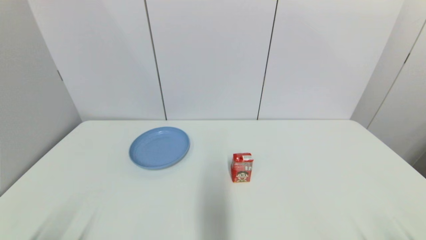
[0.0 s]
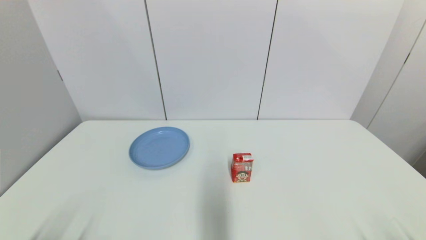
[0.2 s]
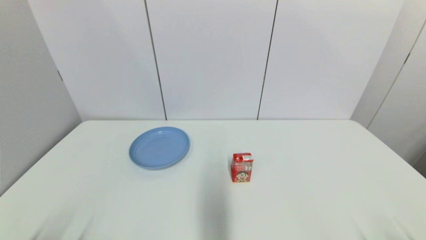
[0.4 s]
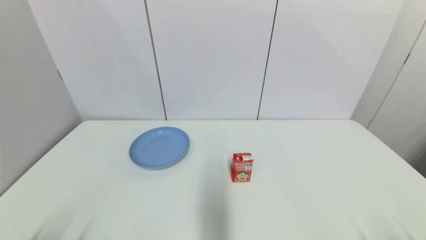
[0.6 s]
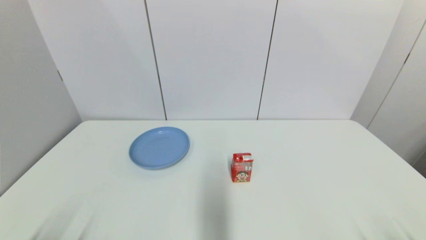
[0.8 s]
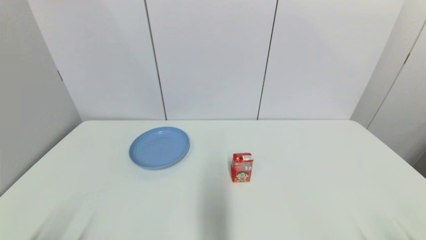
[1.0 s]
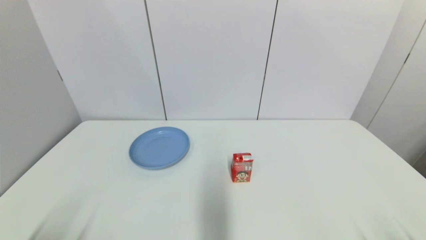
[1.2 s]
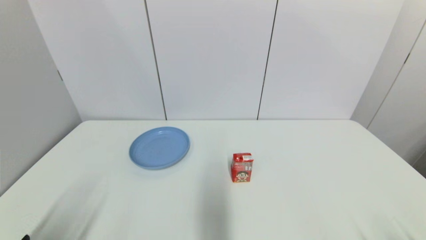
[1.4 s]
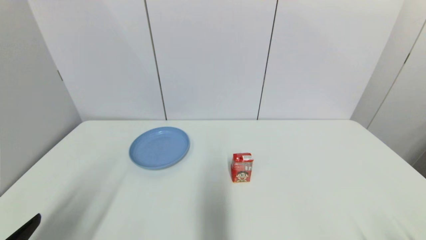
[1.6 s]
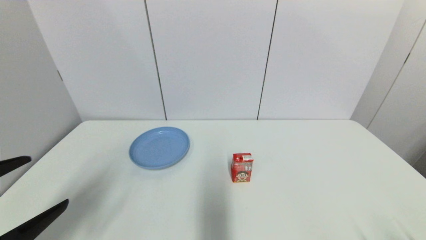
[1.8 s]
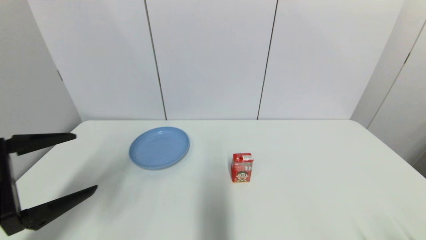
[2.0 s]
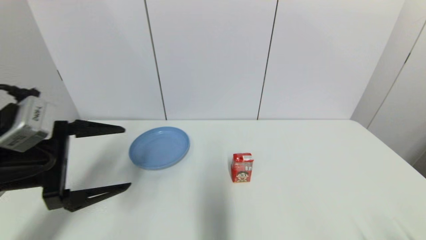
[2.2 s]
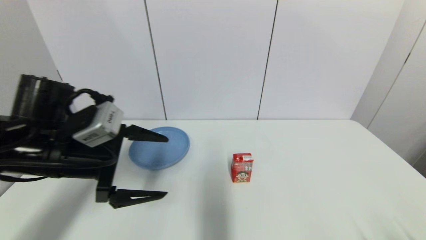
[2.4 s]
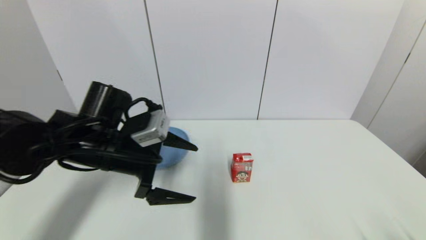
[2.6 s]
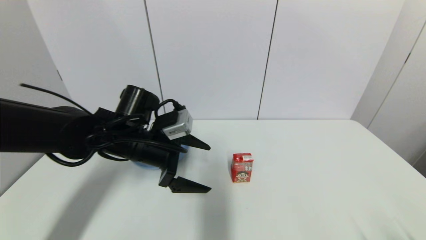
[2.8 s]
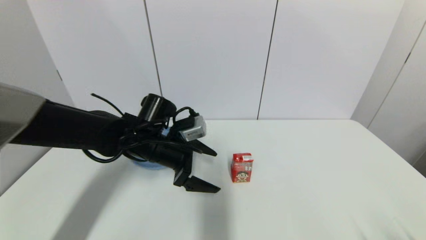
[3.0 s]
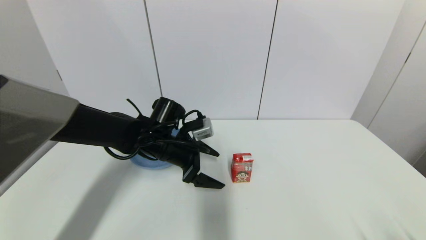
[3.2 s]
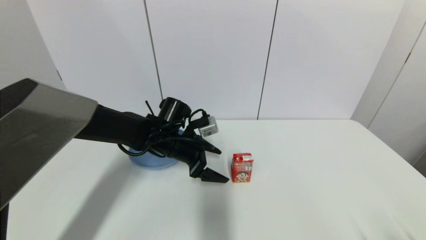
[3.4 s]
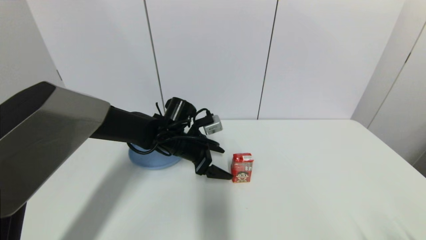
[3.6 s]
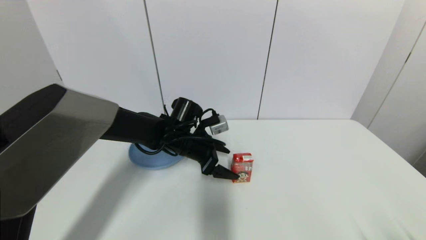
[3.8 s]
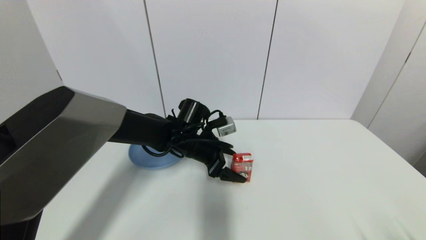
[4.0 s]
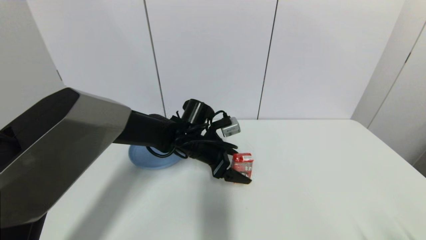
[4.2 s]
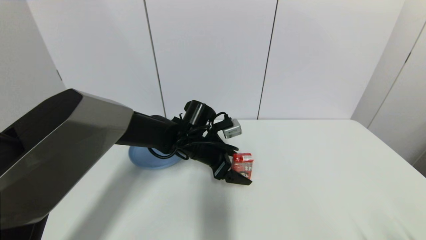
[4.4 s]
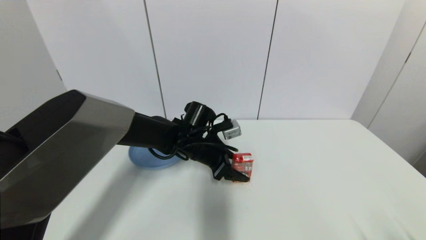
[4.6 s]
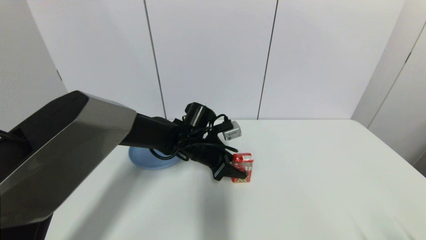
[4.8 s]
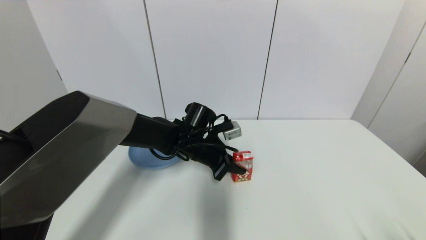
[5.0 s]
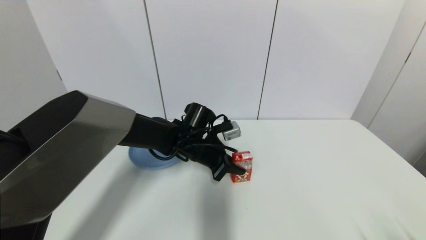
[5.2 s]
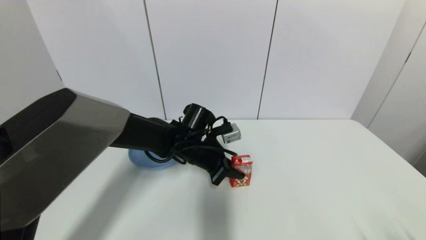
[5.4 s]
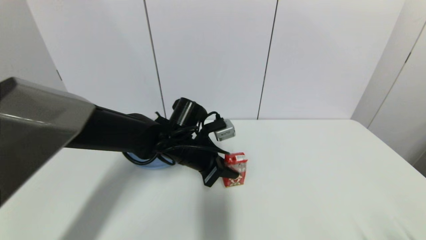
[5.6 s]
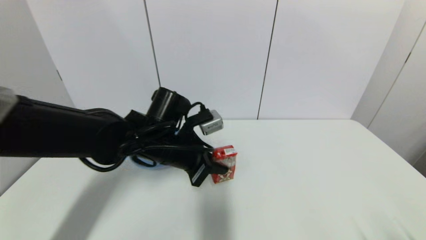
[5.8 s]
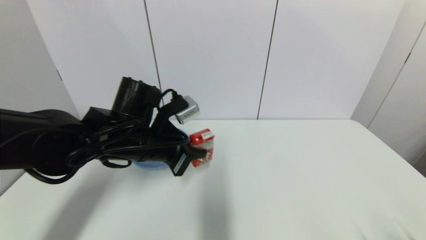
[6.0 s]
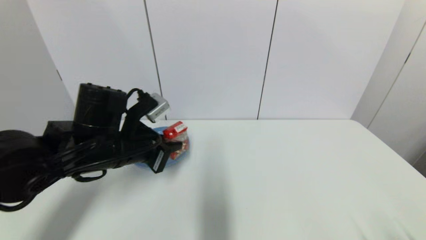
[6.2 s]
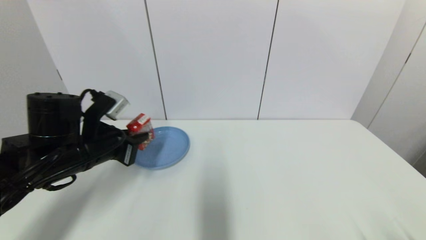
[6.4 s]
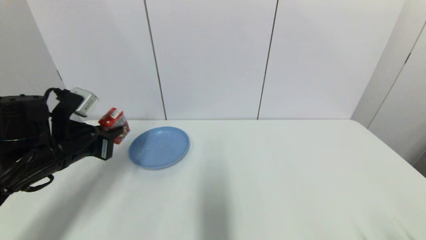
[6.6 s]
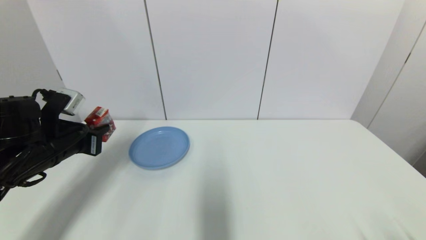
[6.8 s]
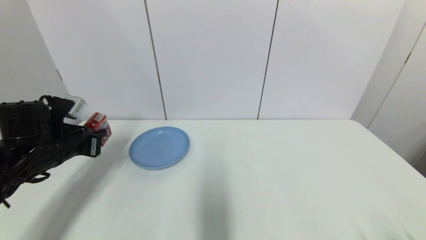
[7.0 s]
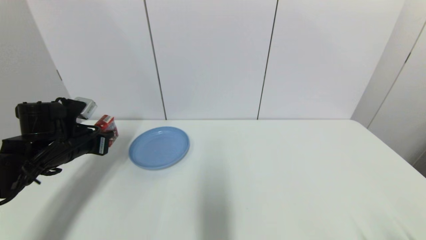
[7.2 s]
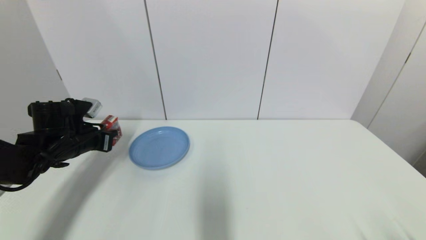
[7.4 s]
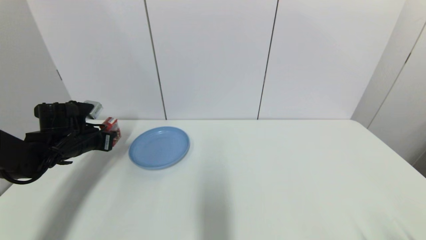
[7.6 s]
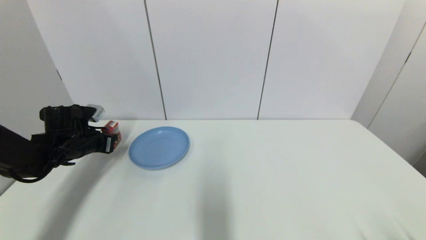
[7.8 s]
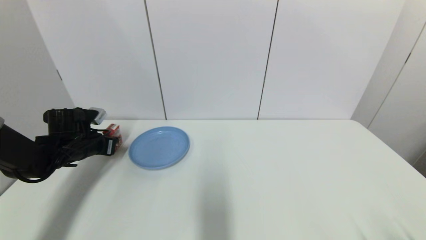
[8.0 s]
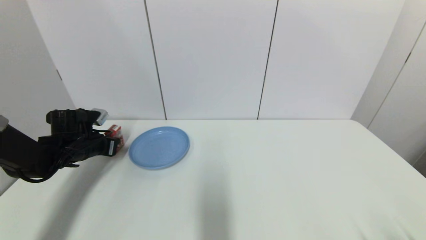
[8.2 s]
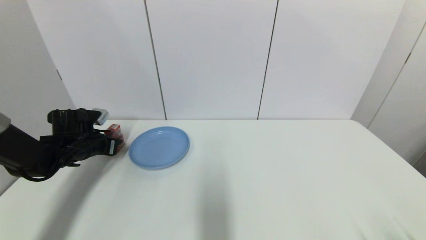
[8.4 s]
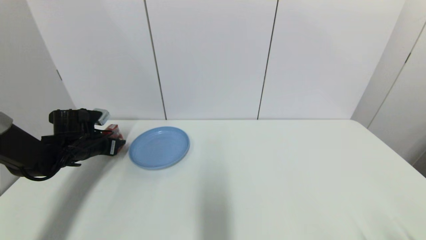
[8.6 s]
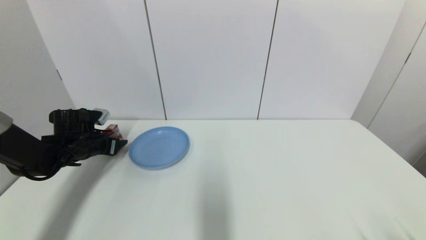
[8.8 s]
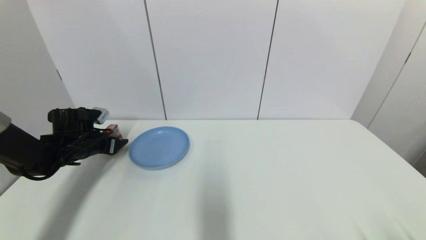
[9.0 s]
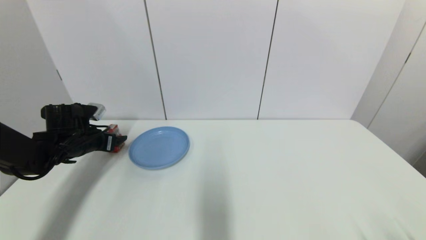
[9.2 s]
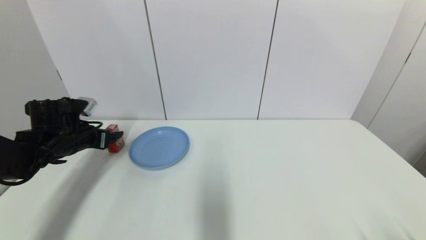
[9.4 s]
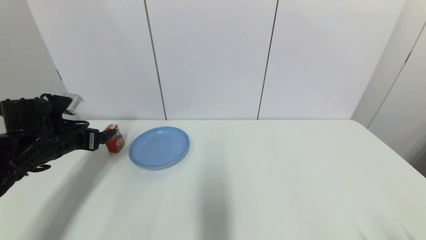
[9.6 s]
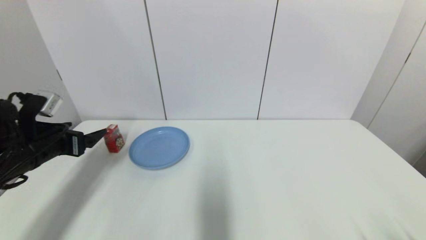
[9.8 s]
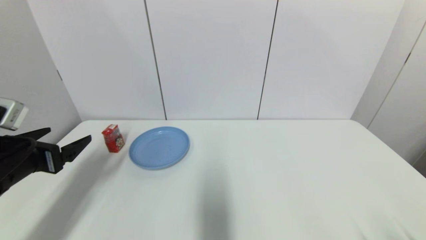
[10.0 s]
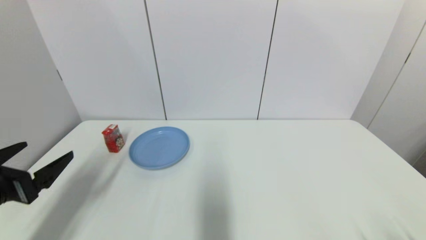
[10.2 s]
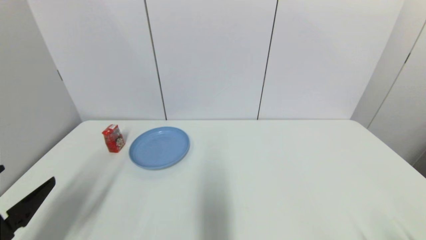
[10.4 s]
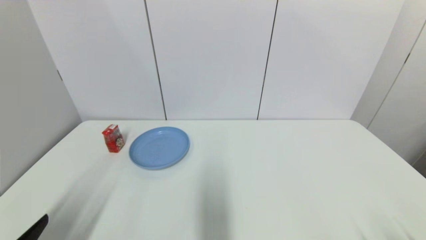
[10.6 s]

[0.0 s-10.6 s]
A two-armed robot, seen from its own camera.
Step, 1.4 to 5.2 s: Grasp the wangzai milk with left gripper.
Step, 5.4 to 8.6 s: Place the wangzai milk on the table with left gripper.
0.0 to 1.6 s: The left gripper heads upward, covering approximately 10 cm.
1.6 to 3.0 s: The left gripper is displaced forward and to the right by approximately 35 cm.
3.0 to 4.6 s: The left gripper is displaced to the right by some 5 cm, and closes.
4.6 to 6.0 s: The left gripper goes roughly 15 cm to the left, backward and upward, and closes its fingers.
6.0 to 7.6 s: The left gripper heads to the left, forward and downward, covering some 20 cm.
7.6 to 9.0 s: The left gripper opens.
9.0 to 10.6 s: The left gripper is displaced backward by about 35 cm.

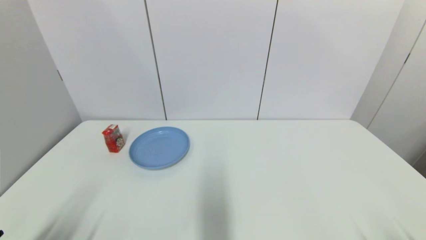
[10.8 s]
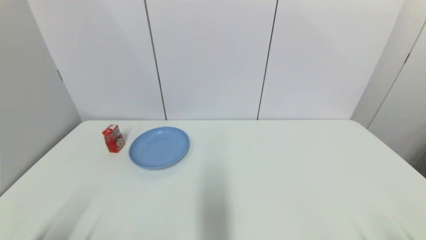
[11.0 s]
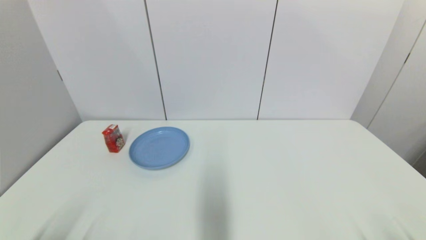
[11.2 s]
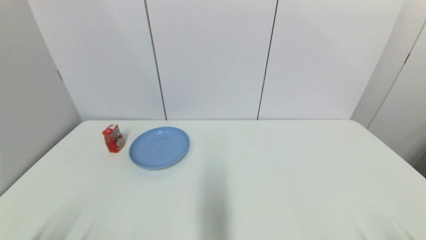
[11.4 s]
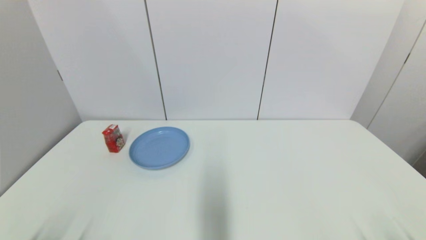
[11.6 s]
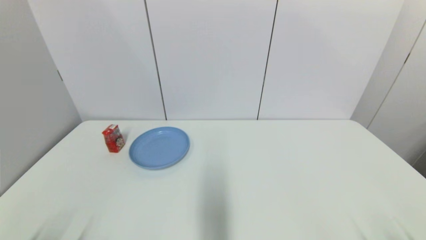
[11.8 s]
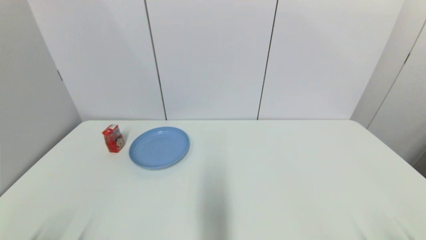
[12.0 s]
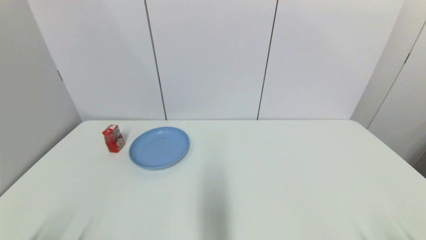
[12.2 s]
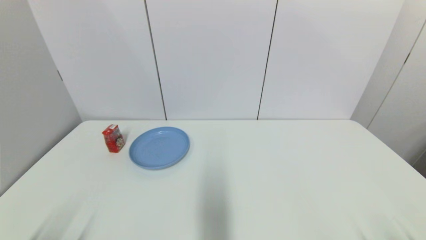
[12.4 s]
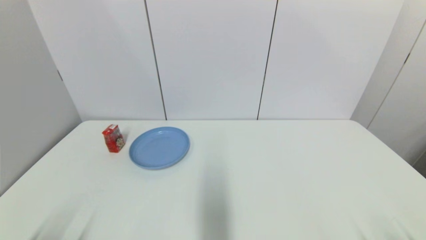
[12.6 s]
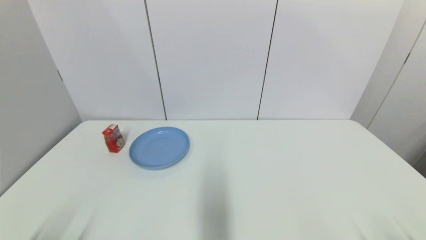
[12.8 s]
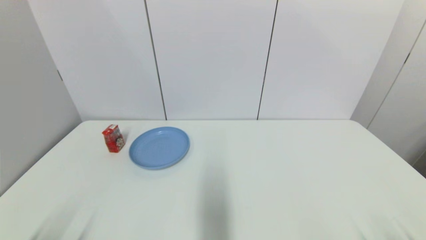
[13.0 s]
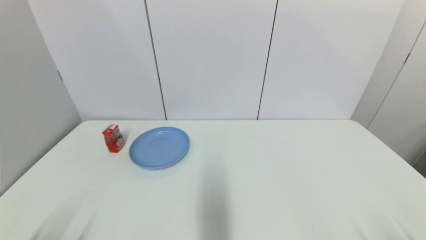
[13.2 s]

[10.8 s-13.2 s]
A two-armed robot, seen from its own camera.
12.0 to 13.2 s: Both grippers stay put.

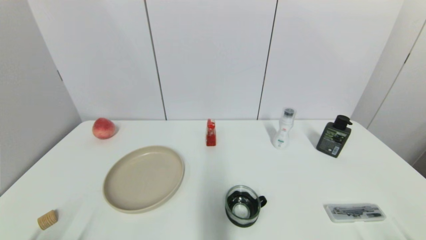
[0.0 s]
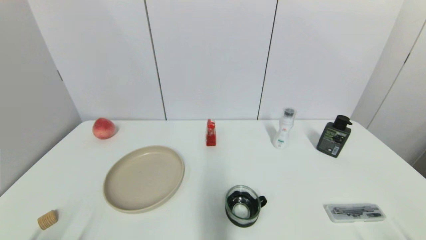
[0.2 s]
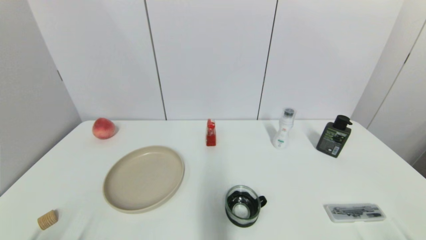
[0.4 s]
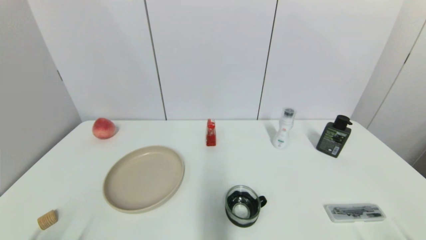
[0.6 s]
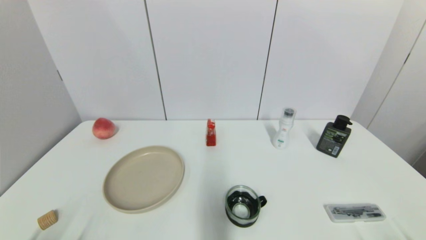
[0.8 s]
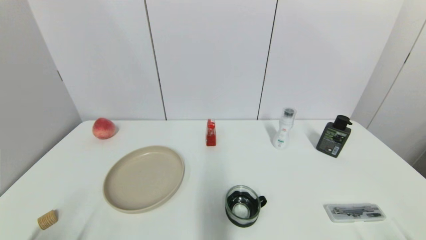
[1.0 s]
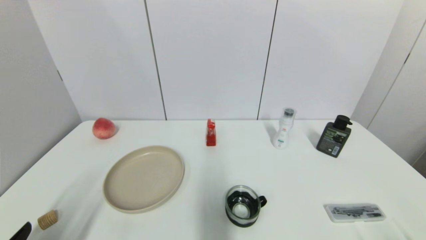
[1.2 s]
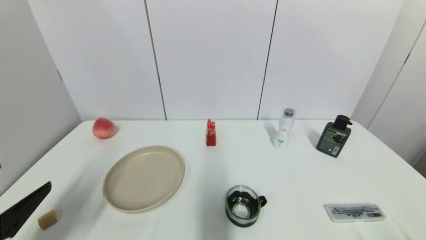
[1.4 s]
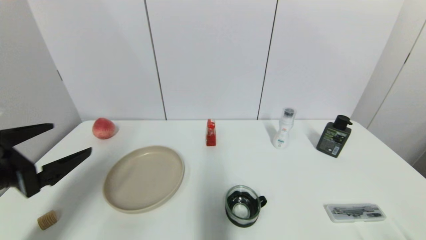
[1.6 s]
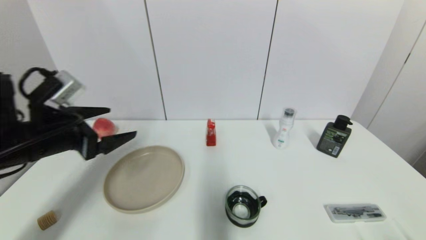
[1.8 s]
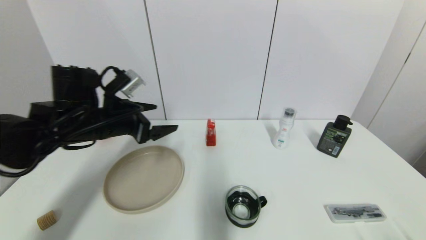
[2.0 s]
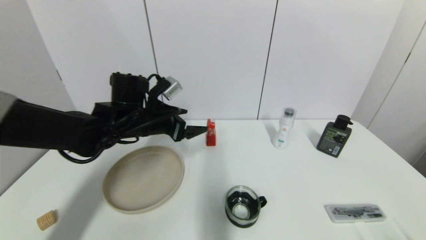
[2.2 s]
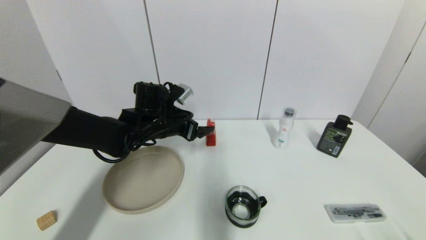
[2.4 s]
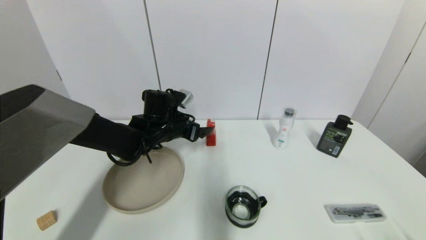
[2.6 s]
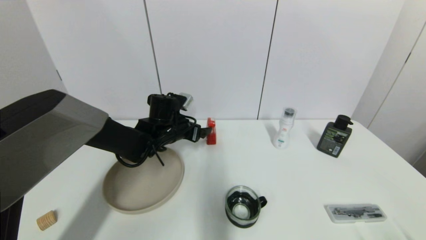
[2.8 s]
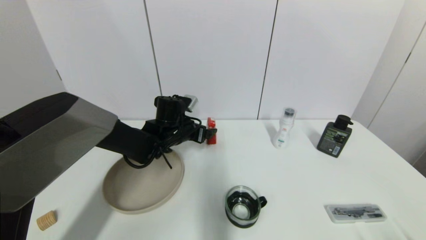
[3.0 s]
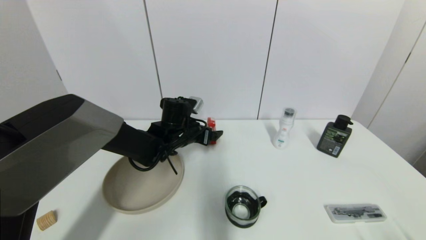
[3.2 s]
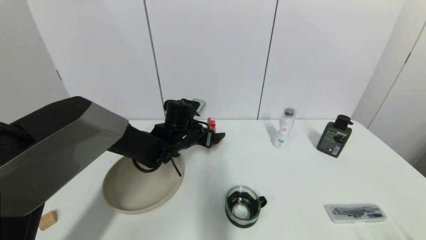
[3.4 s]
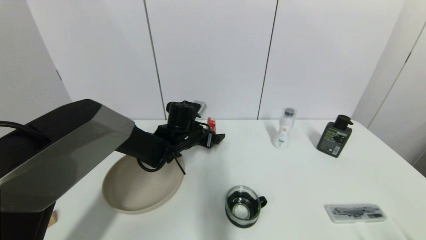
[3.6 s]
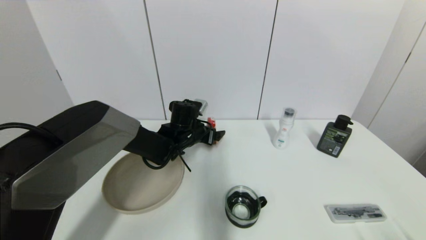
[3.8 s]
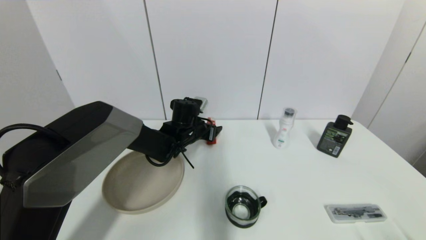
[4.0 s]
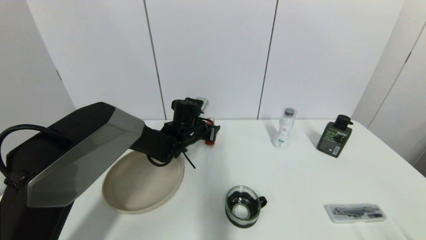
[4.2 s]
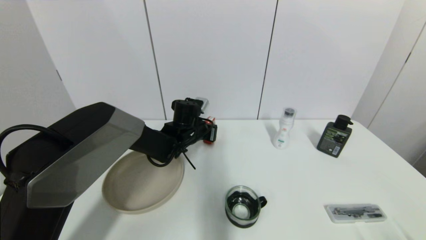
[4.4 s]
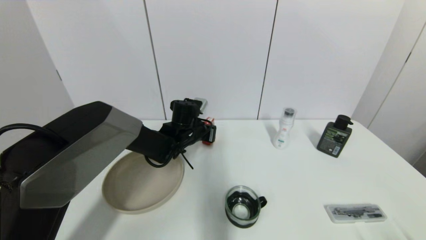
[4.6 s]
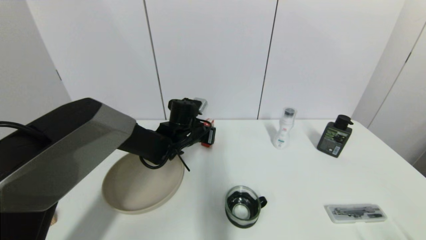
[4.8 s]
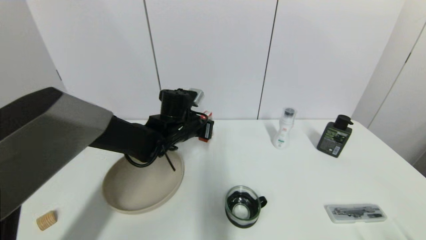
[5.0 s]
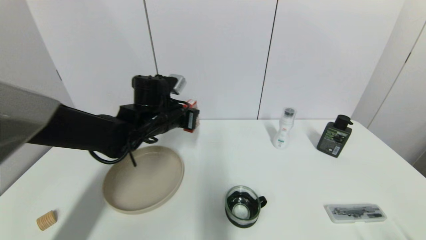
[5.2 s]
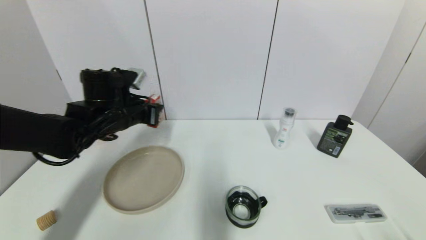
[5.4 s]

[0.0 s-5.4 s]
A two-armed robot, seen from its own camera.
Step, 1.2 to 4.6 s: Grasp the wangzai milk with left gripper.
0.0 to 1.4 s: The left gripper heads upward and forward, covering roughly 15 cm.
1.4 to 2.8 s: The left gripper is displaced forward and to the right by some 35 cm.
2.8 to 4.0 s: The left gripper shifts by some 5 cm, and closes.
4.0 to 5.4 s: The left gripper travels to the left, upward and backward by about 20 cm, and closes its fingers.
